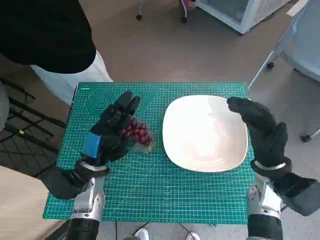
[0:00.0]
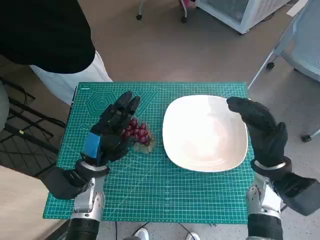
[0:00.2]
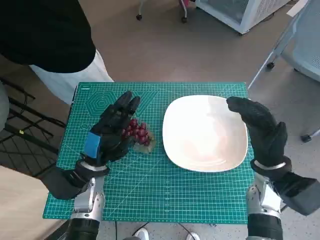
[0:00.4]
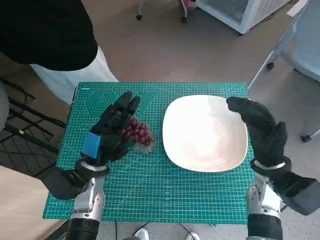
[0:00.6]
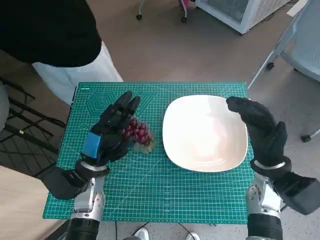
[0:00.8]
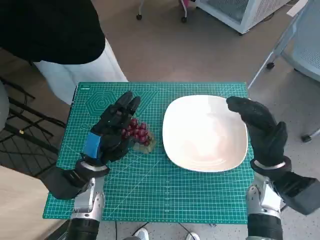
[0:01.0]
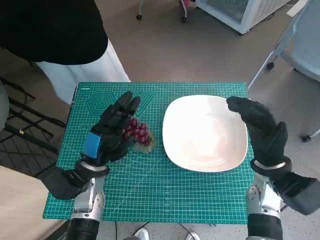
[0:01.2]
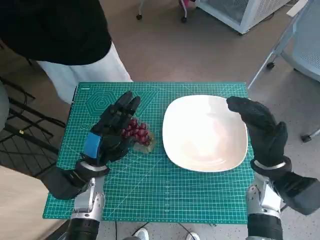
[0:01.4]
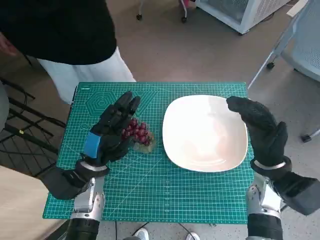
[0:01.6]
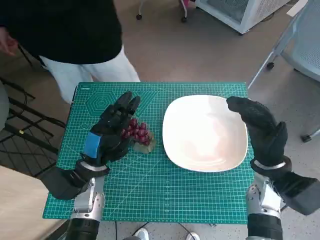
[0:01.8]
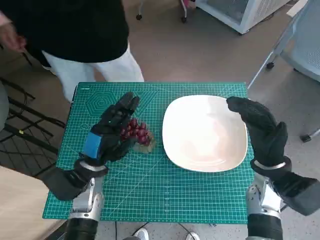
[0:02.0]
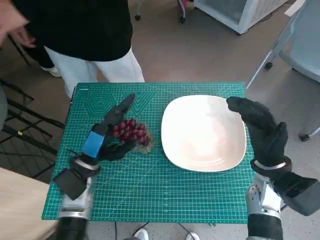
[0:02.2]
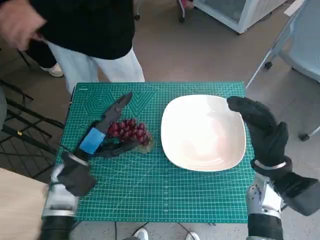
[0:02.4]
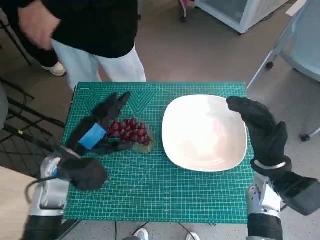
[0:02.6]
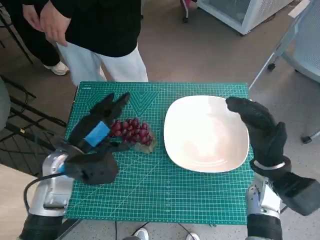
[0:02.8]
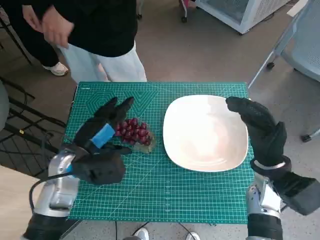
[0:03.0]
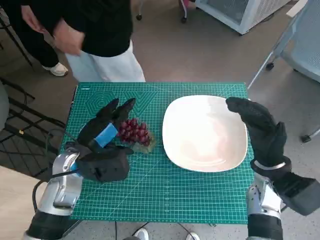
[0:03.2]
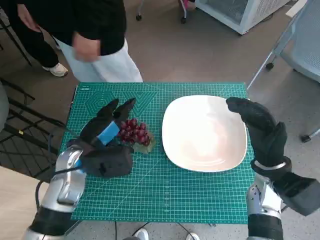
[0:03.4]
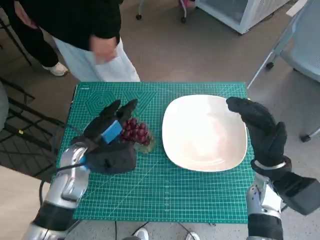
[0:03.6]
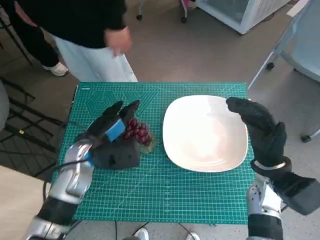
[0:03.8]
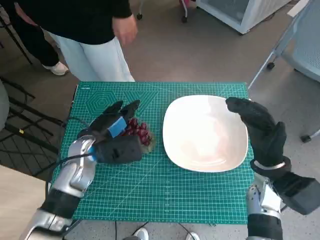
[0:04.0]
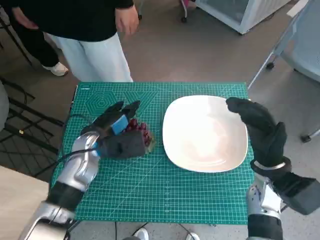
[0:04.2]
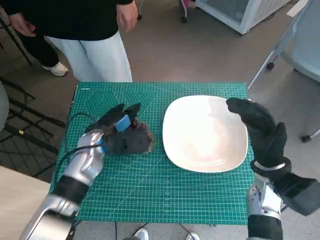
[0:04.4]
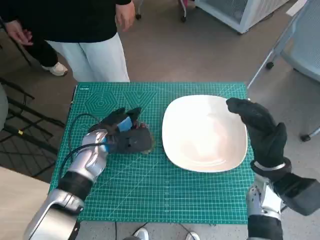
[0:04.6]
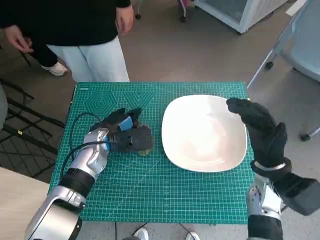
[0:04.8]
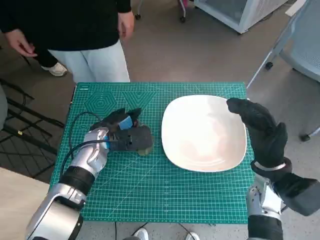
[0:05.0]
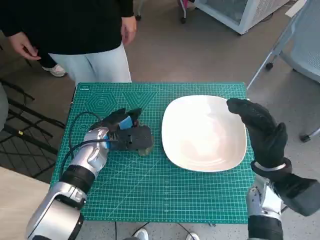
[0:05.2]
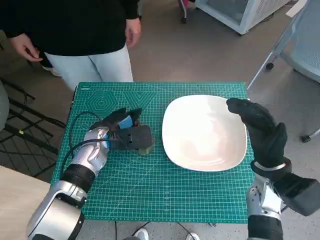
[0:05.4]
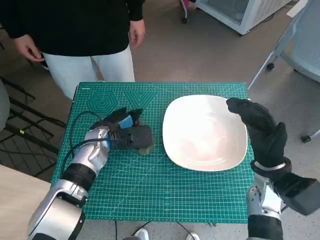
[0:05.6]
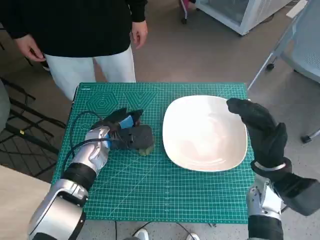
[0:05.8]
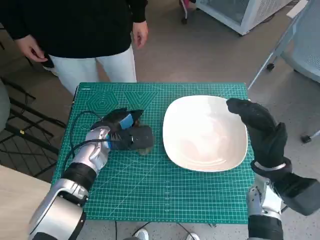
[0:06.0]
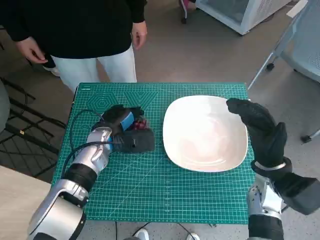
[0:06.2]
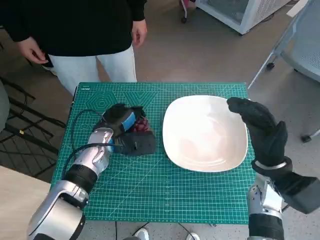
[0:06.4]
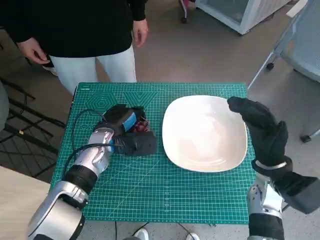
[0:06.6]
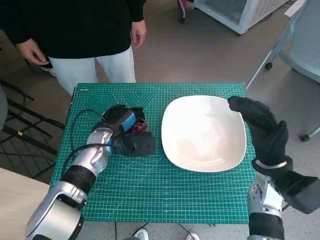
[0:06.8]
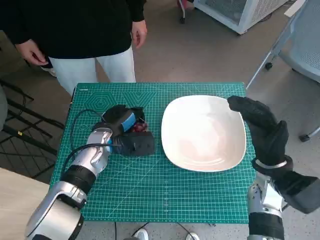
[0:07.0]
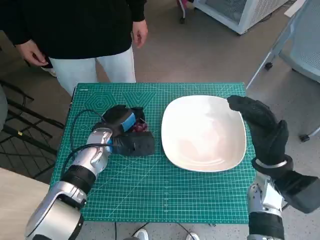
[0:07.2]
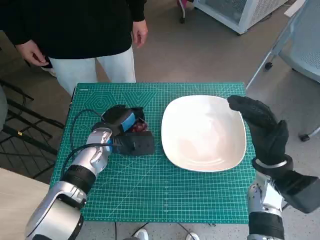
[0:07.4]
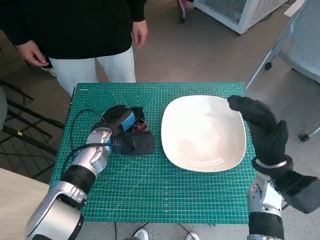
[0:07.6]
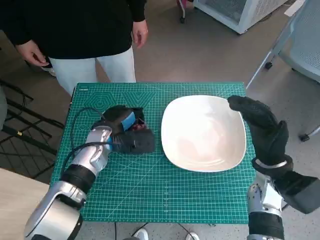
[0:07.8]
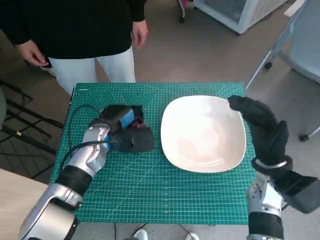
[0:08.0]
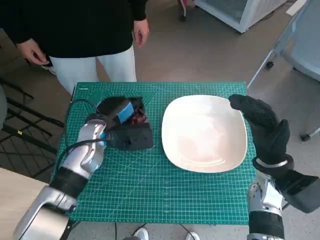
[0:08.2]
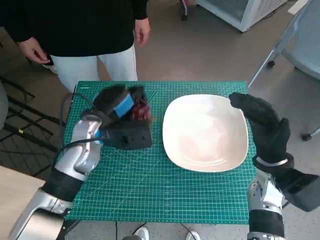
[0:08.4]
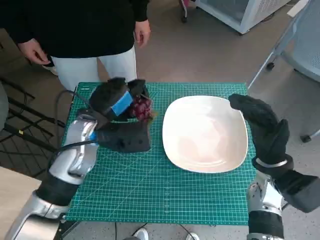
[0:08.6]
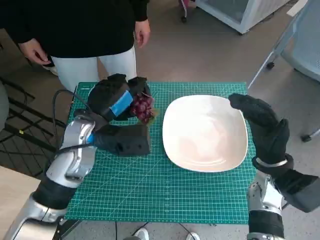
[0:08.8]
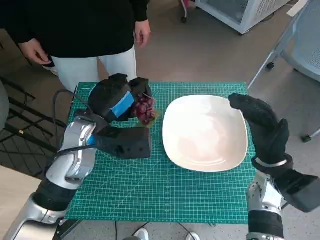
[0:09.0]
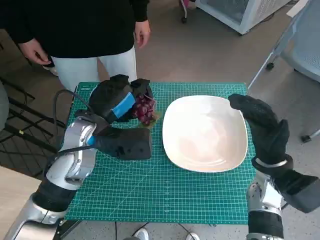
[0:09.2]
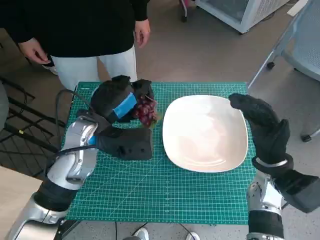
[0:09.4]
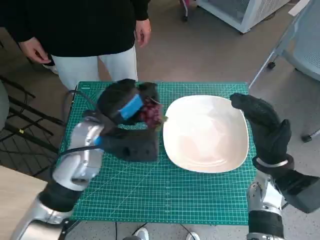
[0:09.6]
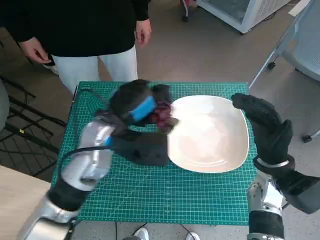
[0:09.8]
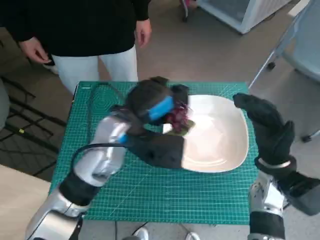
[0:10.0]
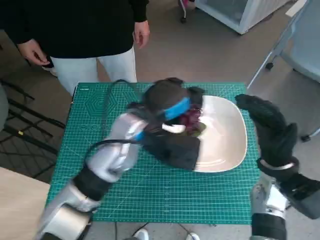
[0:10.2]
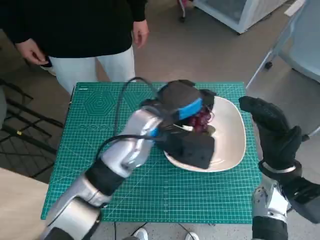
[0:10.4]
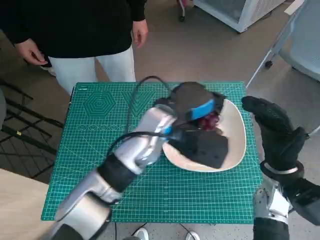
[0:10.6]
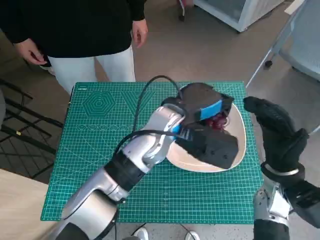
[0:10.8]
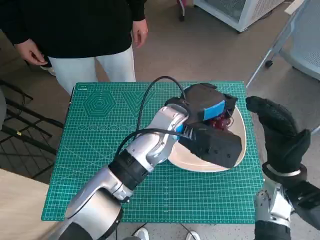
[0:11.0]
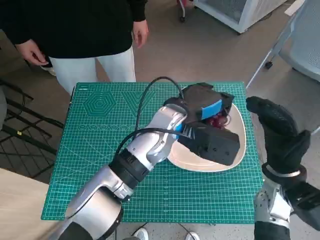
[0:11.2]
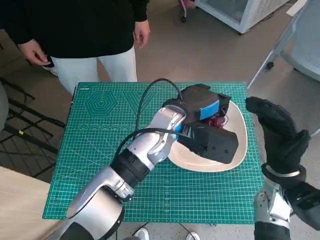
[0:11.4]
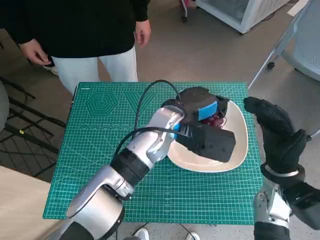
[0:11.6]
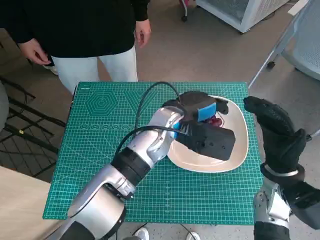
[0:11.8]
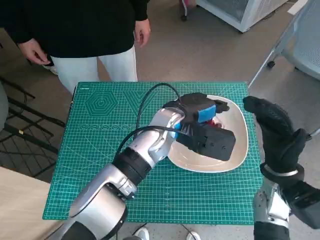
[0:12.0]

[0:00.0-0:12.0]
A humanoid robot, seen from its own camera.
Task of the whole recording: Pick up the grapes and put them on the plate.
Step, 0:00.0 to 0:06.0: Grasp the grapes with left hand.
0:01.6 to 0:03.0: The left hand moves upward, approximately 5 cm.
0:03.0 to 0:04.4: The left hand moves forward, about 5 cm.
0:04.4 to 0:07.6: The hands stay close to where they were, moving slightly.
0:07.6 to 0:09.0: The left hand shifts about 10 cm upward.
0:09.0 to 0:10.4: The left hand goes some 10 cm to the right.
0:10.4 to 0:12.0: The left hand shifts by approximately 5 cm.

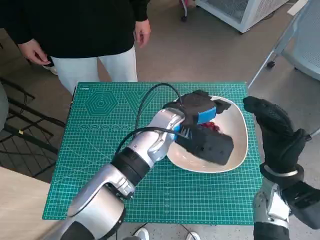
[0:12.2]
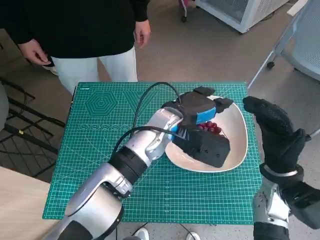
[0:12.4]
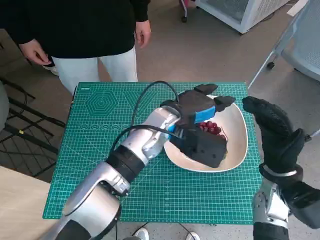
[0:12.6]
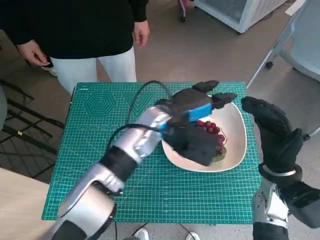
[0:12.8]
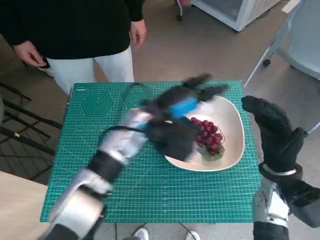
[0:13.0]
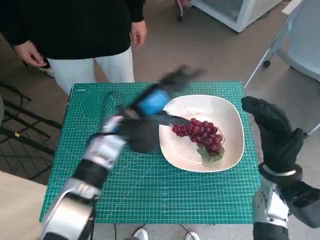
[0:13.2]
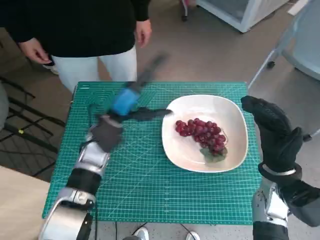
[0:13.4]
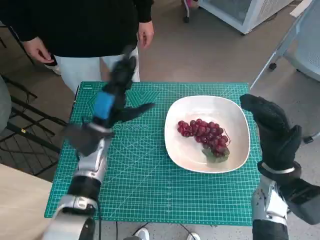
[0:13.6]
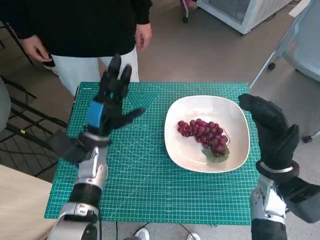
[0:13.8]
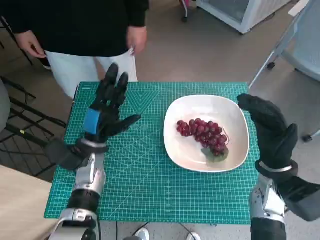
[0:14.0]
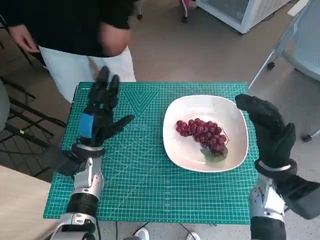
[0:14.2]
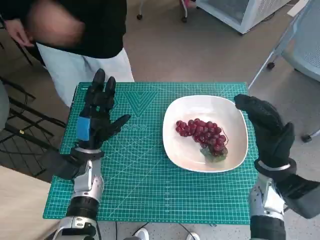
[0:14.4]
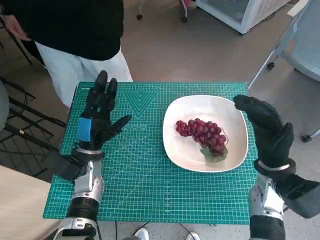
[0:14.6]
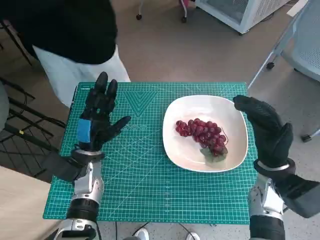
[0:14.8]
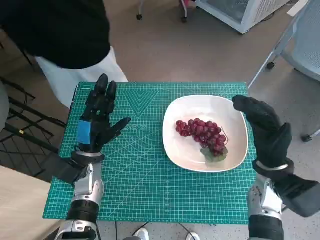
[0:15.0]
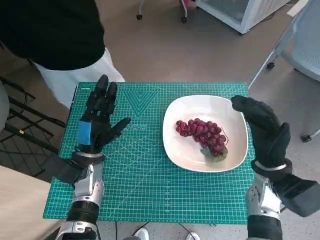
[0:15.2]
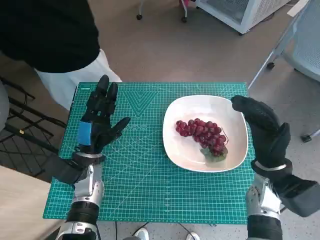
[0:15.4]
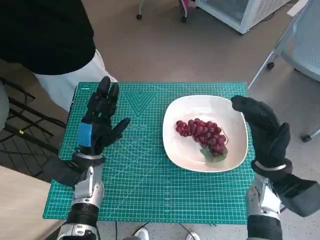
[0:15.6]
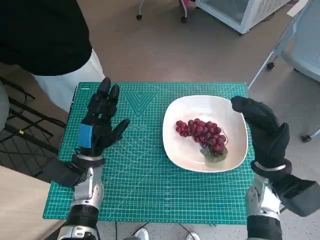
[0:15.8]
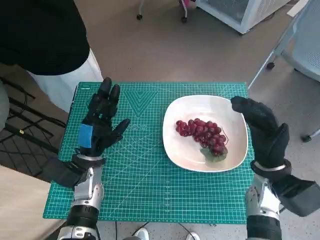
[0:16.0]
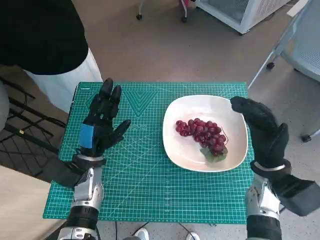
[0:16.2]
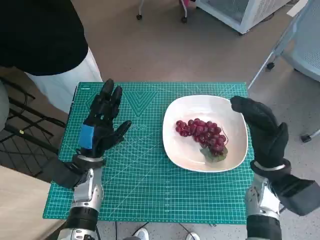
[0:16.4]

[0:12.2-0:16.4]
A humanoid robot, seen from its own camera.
Task of the whole recording: Pick up the grapes and put them on the plate.
0:12.2 to 0:13.6: The left hand moves to the left, about 15 cm.
0:13.6 to 0:15.0: The left hand goes some 5 cm downward.
0:15.0 to 0:16.4: The two hands keep their place.

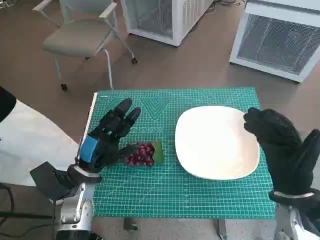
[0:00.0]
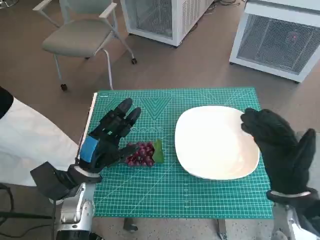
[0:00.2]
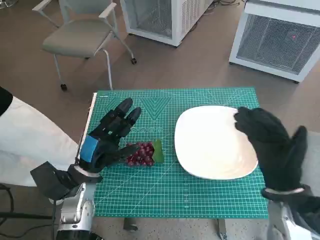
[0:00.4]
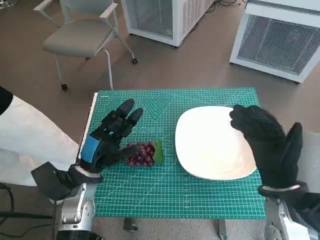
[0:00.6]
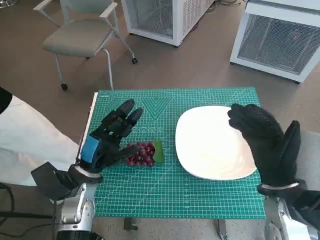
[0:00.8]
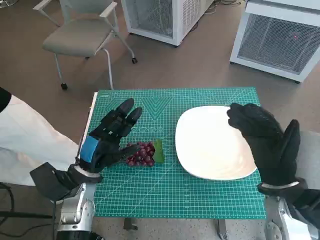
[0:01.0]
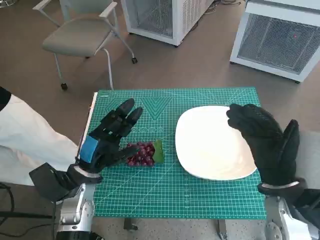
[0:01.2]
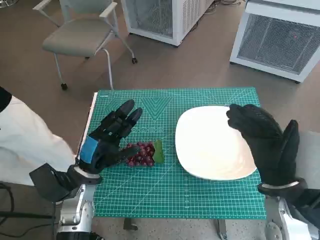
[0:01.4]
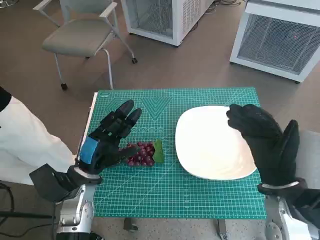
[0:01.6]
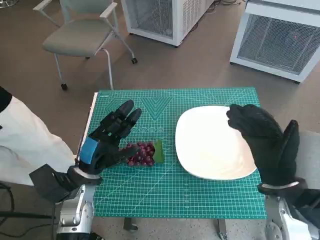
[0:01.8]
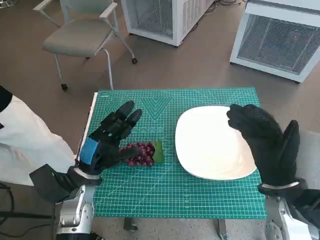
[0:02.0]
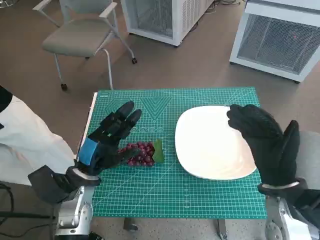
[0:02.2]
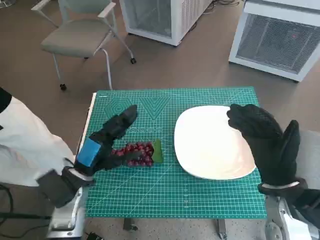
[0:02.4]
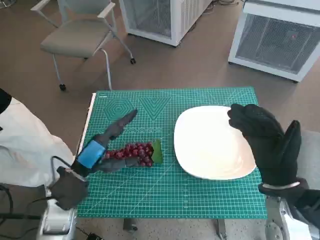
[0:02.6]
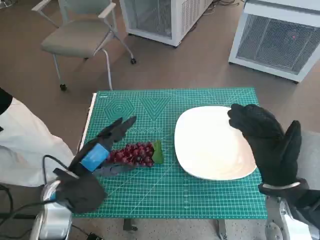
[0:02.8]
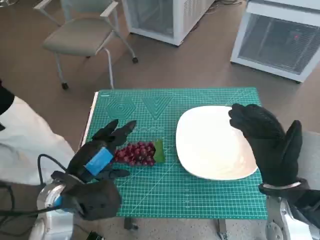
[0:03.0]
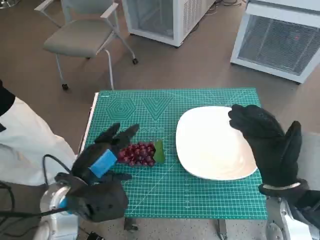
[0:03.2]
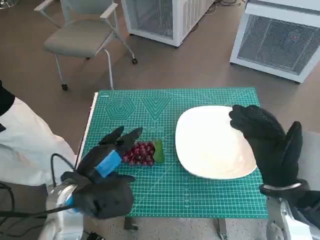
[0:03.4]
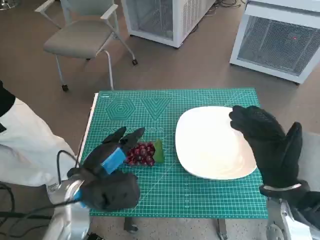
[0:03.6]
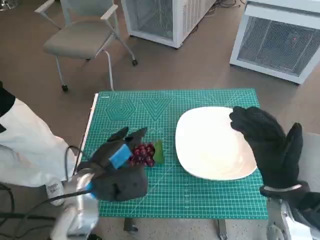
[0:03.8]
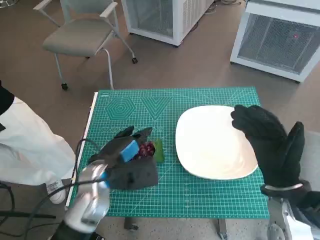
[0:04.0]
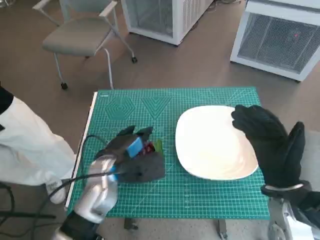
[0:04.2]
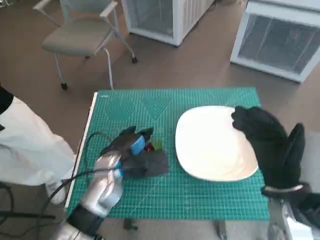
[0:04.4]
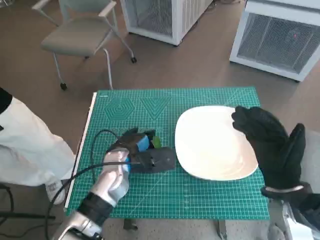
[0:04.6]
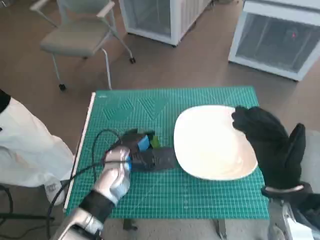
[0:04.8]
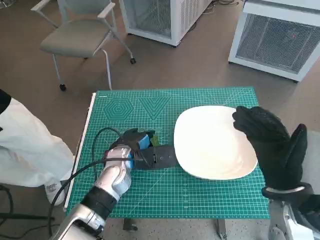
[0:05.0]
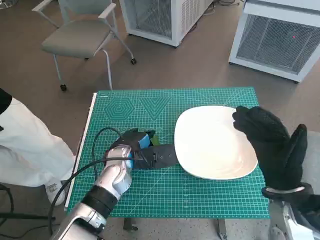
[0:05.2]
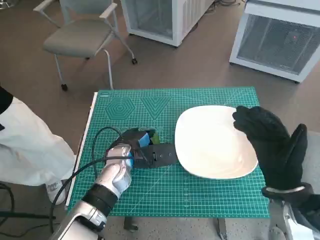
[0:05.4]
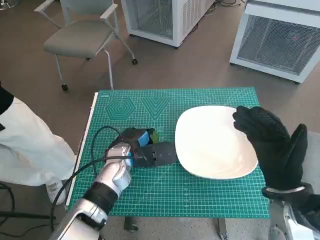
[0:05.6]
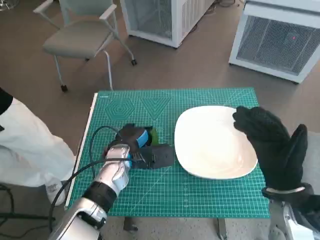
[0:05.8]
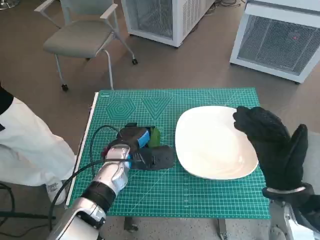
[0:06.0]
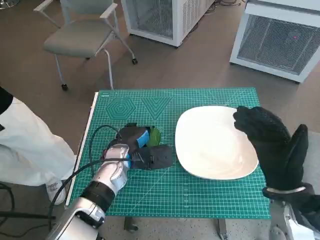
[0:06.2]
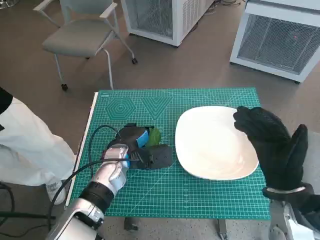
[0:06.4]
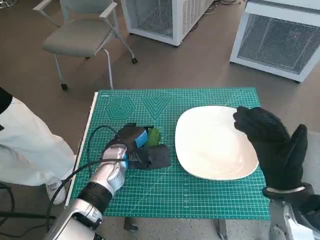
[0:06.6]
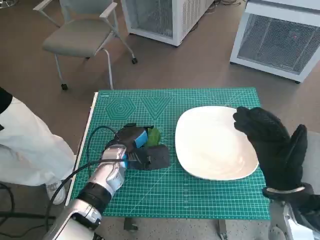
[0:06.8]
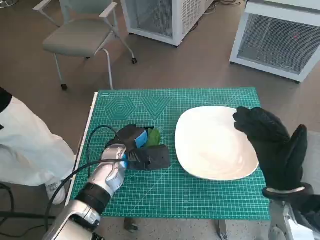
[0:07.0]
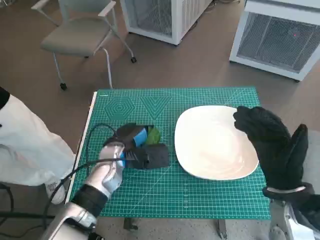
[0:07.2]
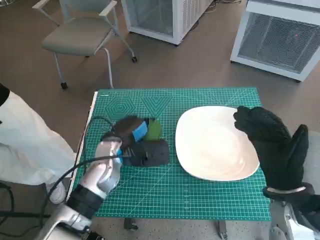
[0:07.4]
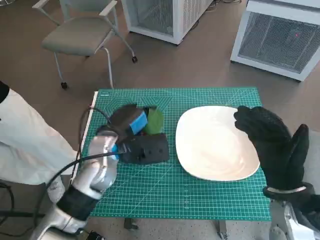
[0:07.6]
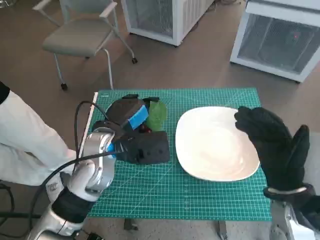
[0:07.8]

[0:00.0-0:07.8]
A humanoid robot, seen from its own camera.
Task of the whole recording: Pick up the grapes and put them on the plate.
Step, 0:00.0 to 0:06.4: Grasp the grapes with left hand.
0:01.6 to 0:03.2: The left hand shifts approximately 5 cm upward.
0:03.2 to 0:04.6: The left hand is displaced forward, to the right and downward by about 15 cm.
0:04.6 to 0:06.2: The hands stay close to where they were, moving slightly.
0:06.2 to 0:07.8: The left hand moves upward, roughly 10 cm.
